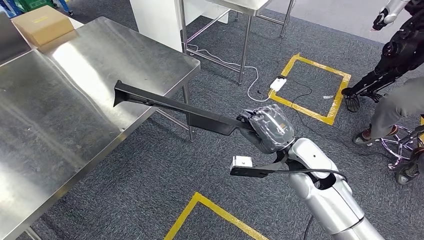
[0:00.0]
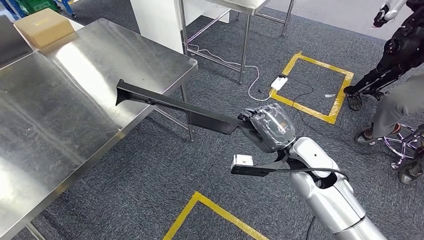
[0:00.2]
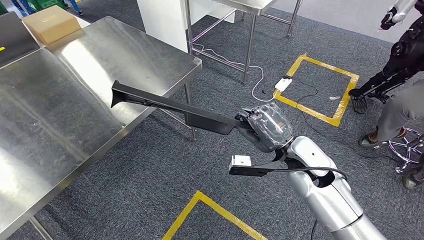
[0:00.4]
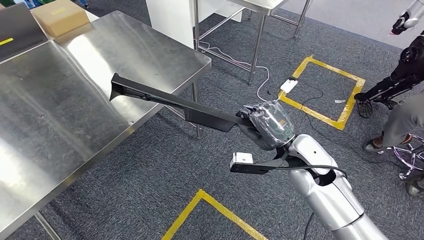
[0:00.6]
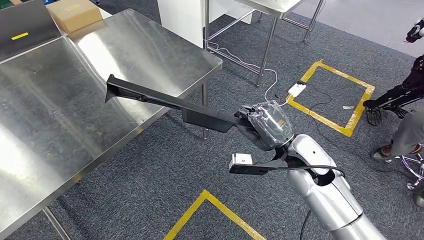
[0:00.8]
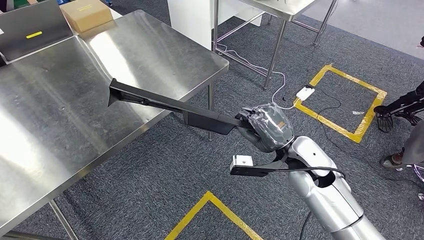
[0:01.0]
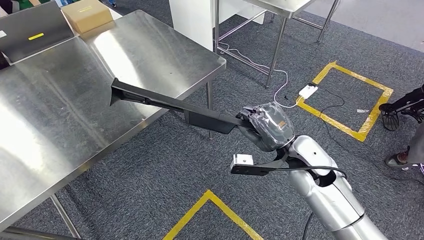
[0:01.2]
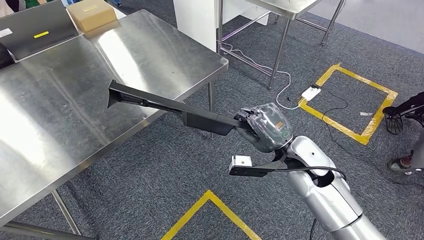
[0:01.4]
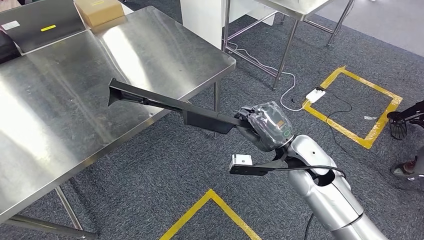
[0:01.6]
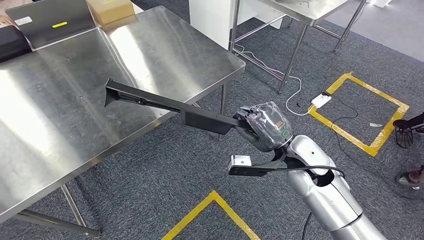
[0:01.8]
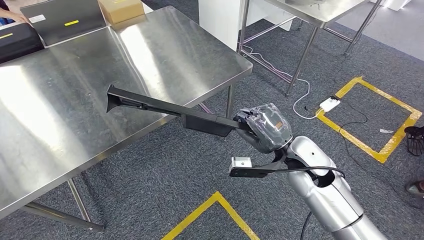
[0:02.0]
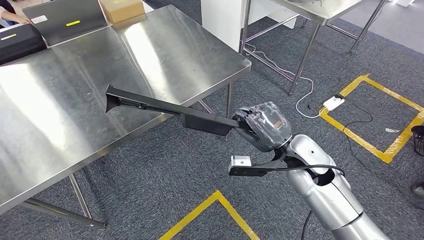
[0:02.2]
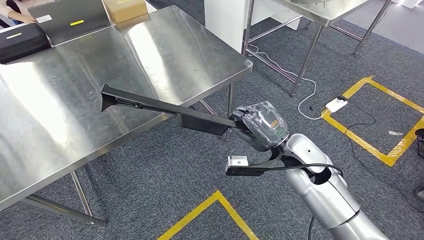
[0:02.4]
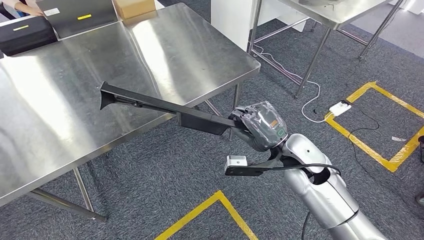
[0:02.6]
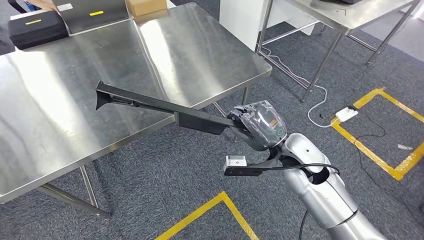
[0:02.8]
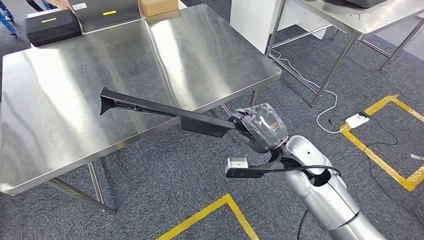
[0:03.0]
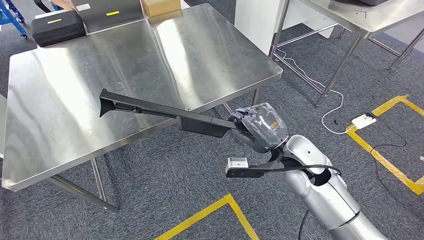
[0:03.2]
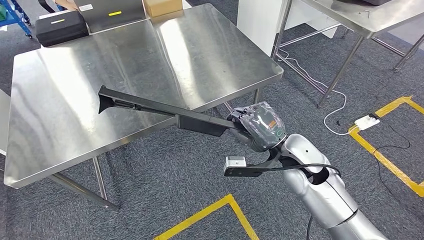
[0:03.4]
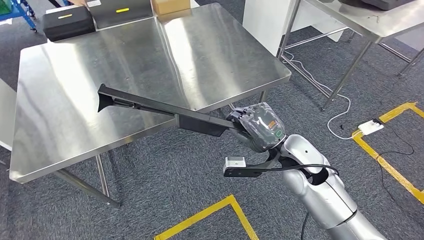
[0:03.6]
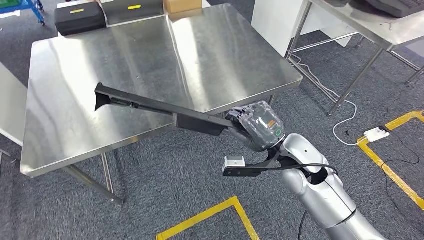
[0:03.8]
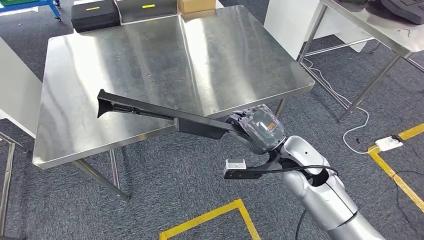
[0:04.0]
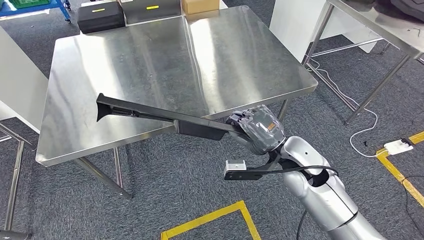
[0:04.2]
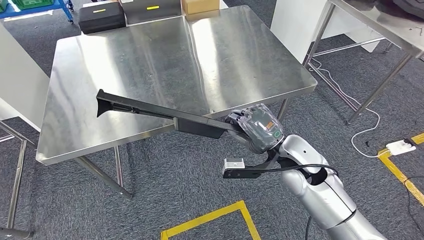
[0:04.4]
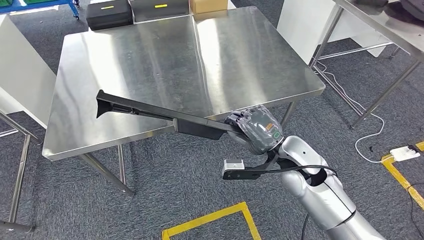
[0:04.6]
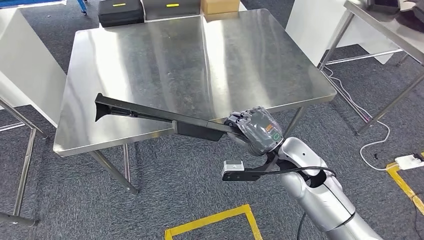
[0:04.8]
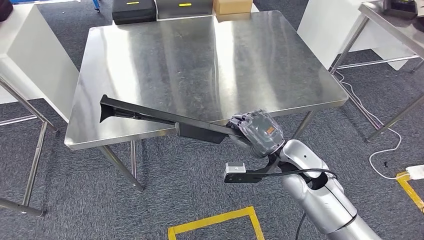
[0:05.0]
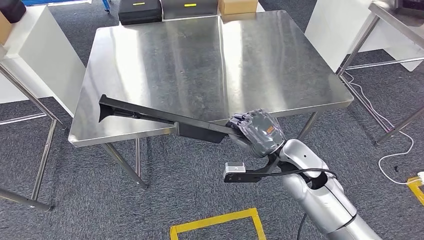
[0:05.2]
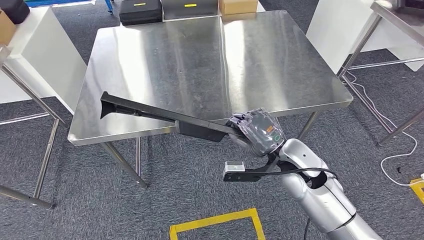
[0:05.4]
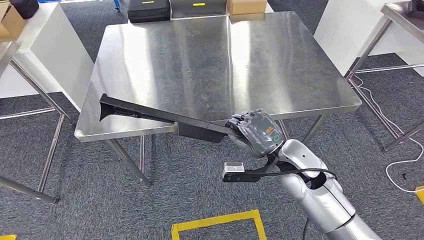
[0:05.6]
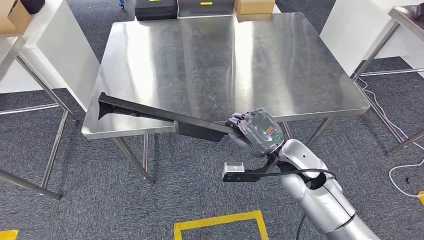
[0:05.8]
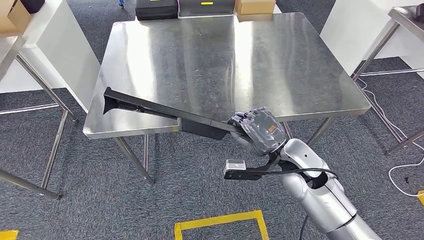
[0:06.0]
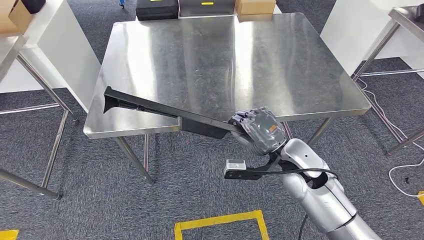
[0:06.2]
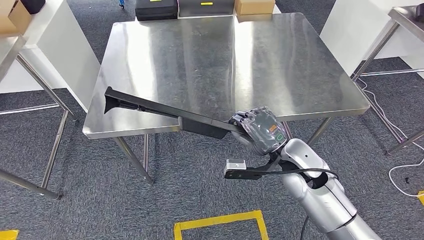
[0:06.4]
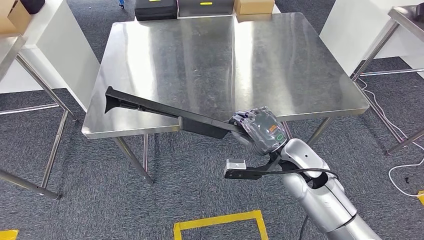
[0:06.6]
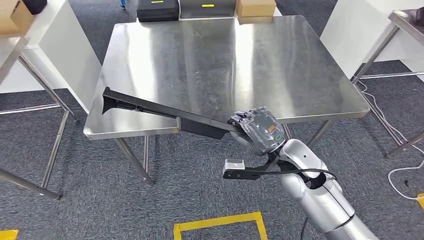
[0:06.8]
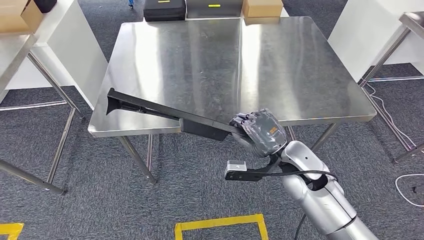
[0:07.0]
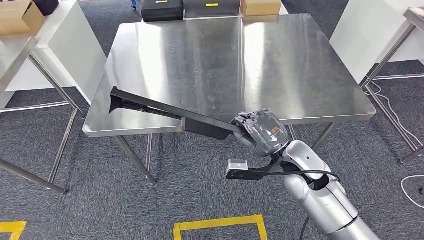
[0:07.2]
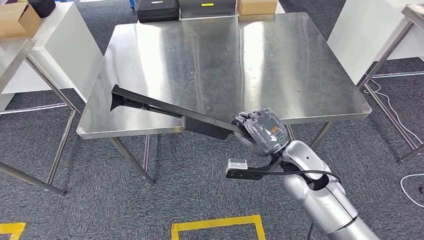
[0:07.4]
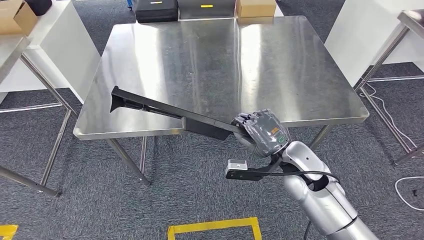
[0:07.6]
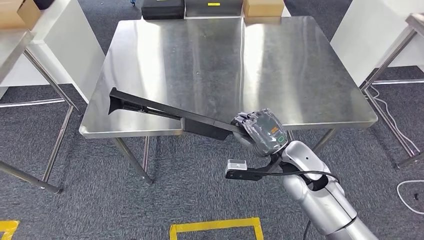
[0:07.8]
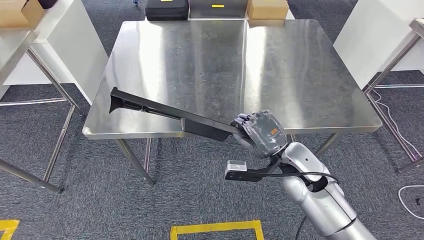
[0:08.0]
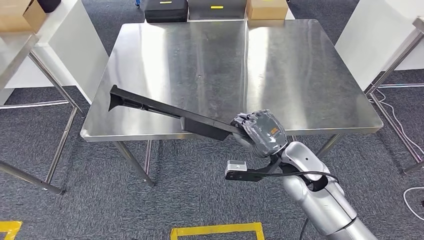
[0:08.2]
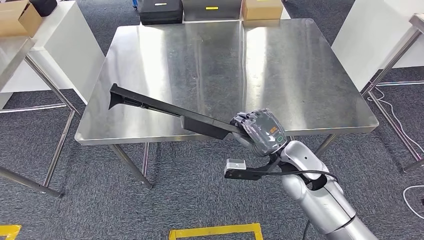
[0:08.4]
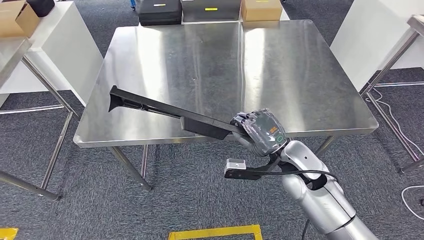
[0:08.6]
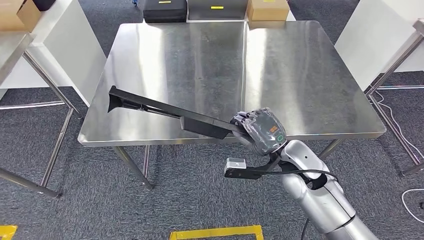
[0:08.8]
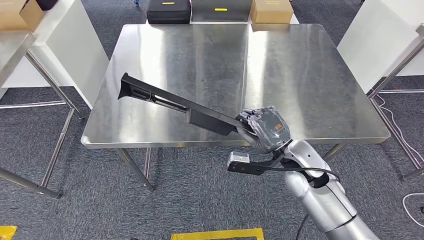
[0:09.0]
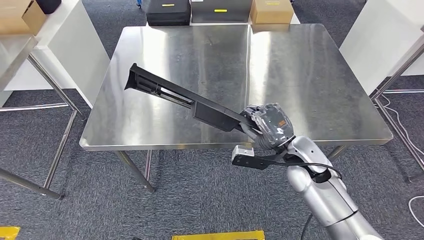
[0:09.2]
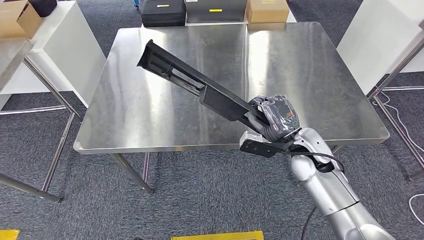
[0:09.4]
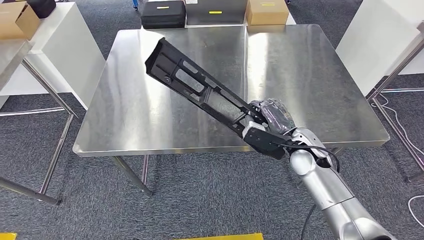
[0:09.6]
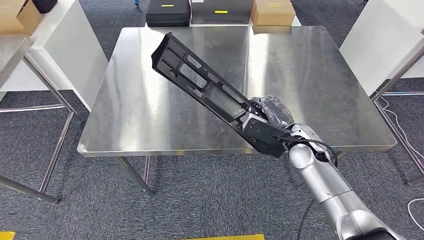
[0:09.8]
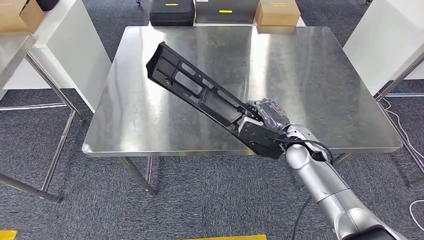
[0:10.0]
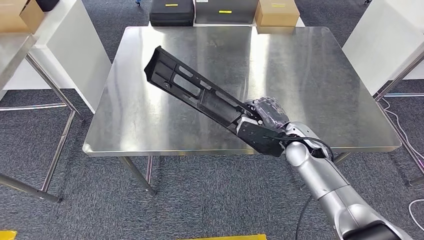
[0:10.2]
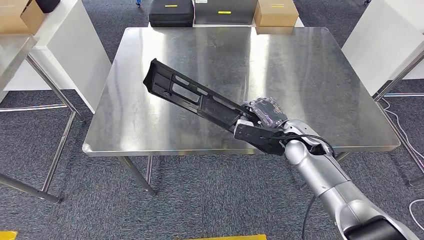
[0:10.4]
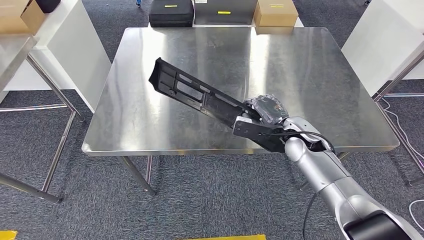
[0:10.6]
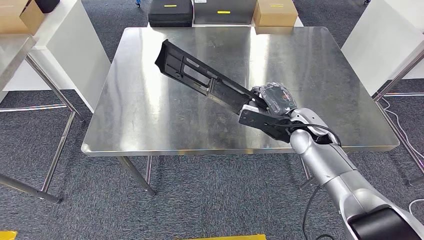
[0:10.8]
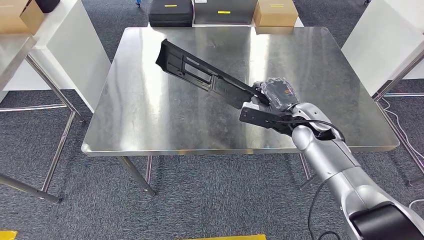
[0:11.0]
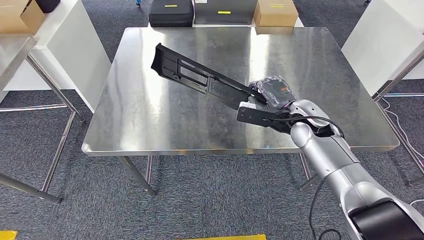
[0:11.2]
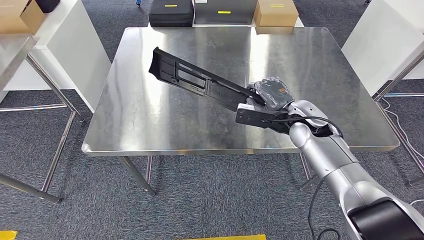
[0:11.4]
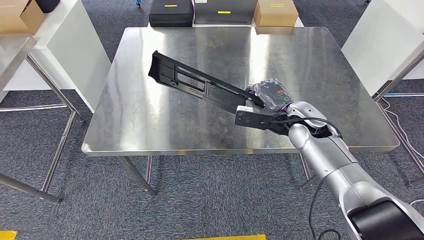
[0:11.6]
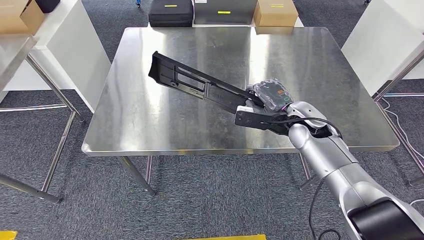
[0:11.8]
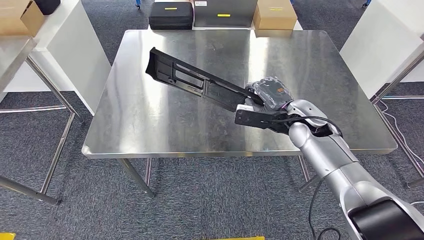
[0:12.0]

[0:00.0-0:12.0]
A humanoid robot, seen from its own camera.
Step, 0:00.0 to 0:02.0: Move the large material to the workbench.

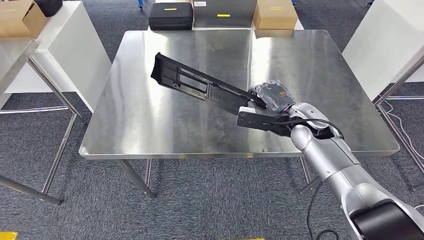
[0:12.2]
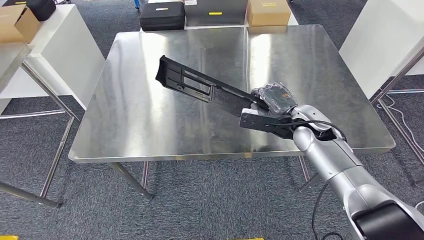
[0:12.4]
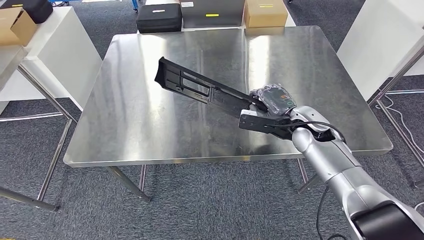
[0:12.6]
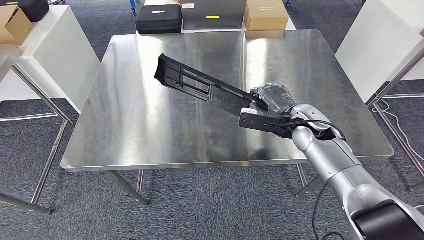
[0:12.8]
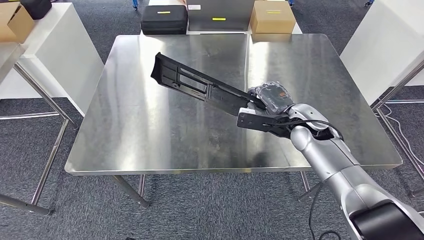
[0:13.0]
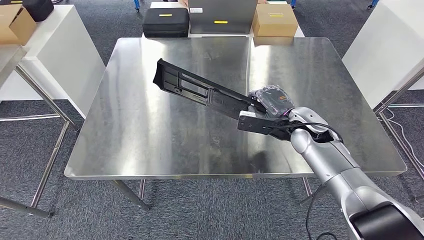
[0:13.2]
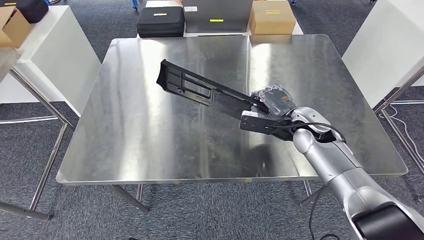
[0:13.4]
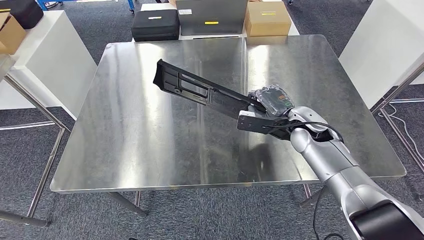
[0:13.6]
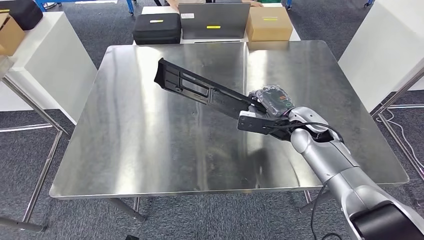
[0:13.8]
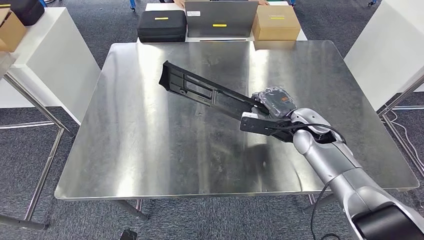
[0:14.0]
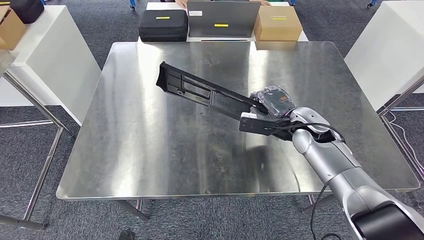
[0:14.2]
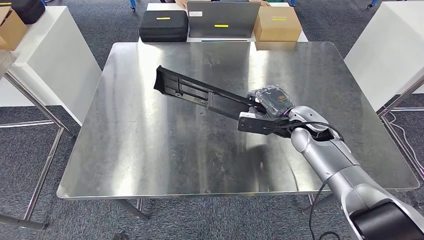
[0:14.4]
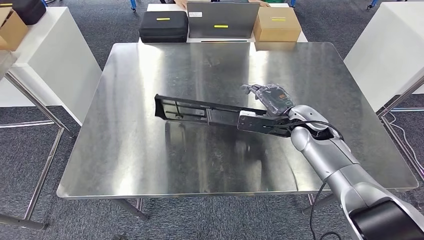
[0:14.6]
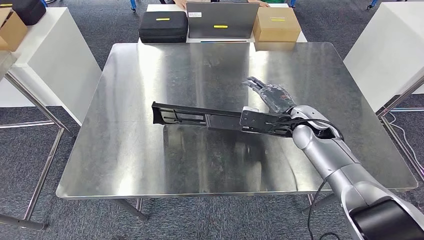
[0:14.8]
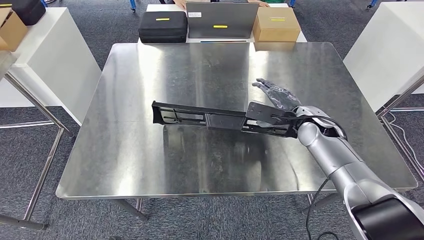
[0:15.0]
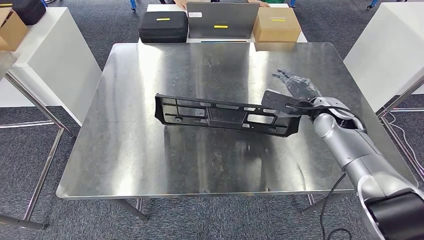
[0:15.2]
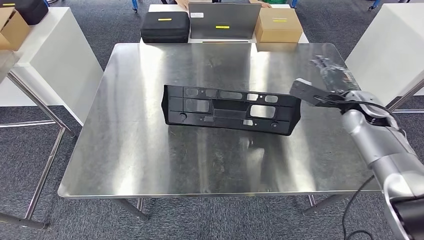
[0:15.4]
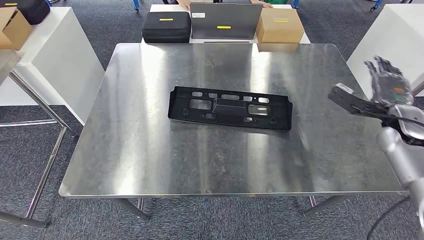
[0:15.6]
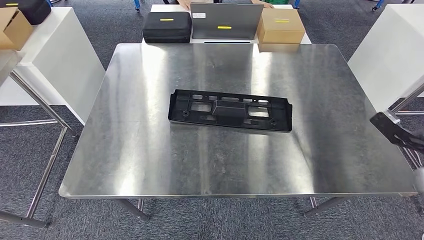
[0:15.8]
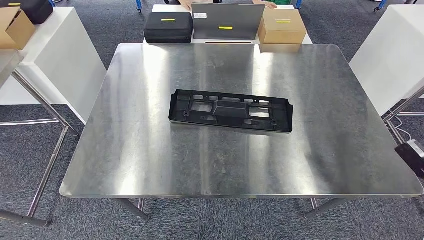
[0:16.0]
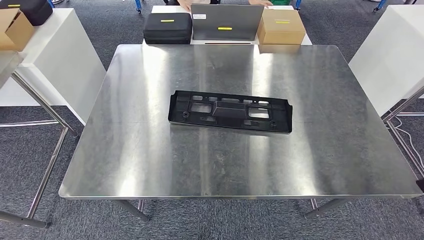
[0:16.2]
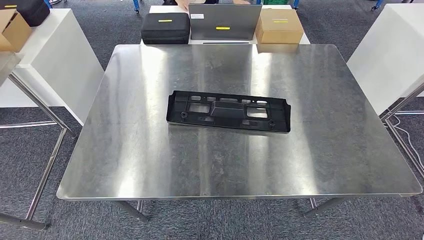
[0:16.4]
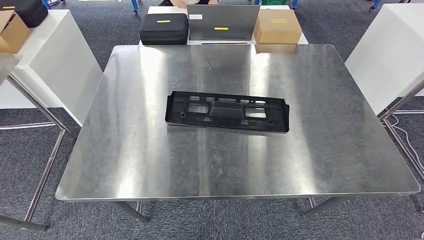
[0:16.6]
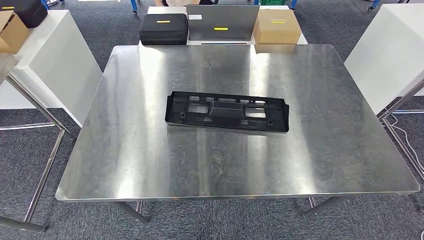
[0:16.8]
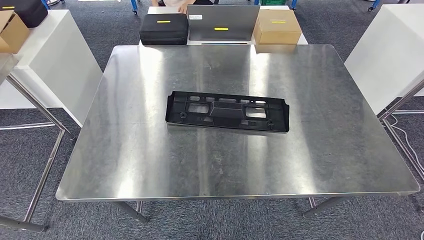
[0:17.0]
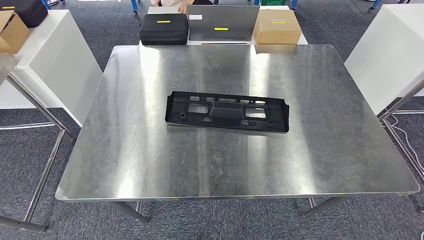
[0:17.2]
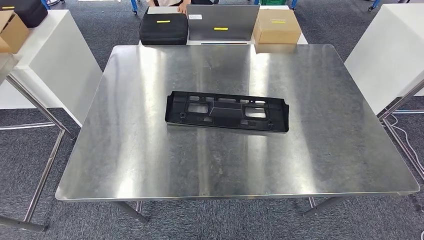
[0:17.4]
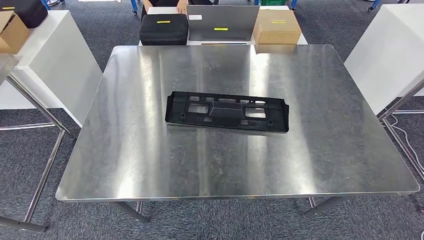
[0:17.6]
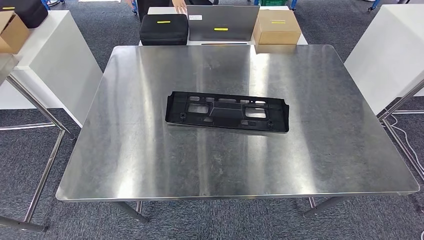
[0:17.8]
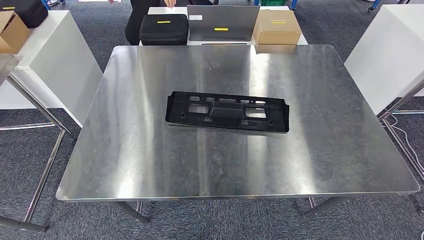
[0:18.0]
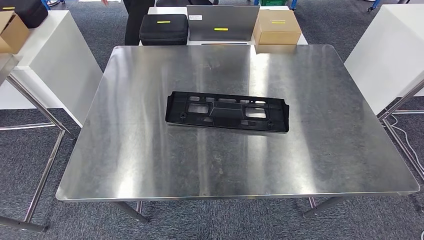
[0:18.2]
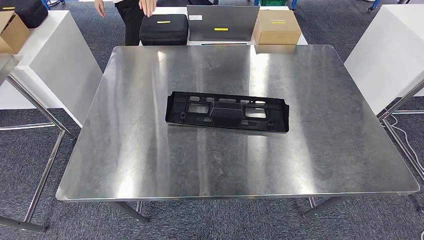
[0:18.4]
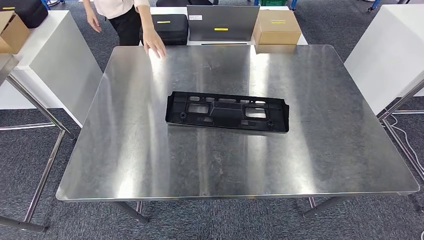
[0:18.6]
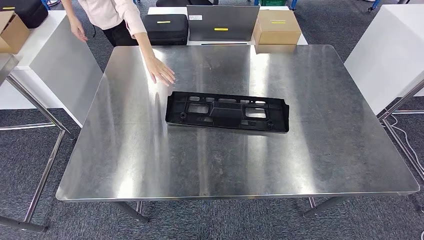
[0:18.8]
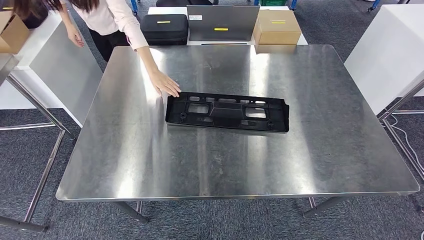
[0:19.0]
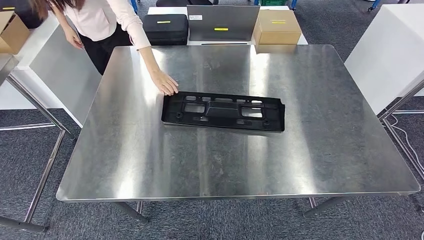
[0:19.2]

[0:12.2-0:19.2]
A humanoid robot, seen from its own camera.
Step, 0:12.2 to 0:15.4: Insert the large material into the corresponding slot on the workbench.
0:16.4 to 0:17.8: The right hand travels downward and to the left by approximately 35 cm; the left hand moves to the left, approximately 5 cm.
0:17.8 to 0:19.2: The hands move only a little.
